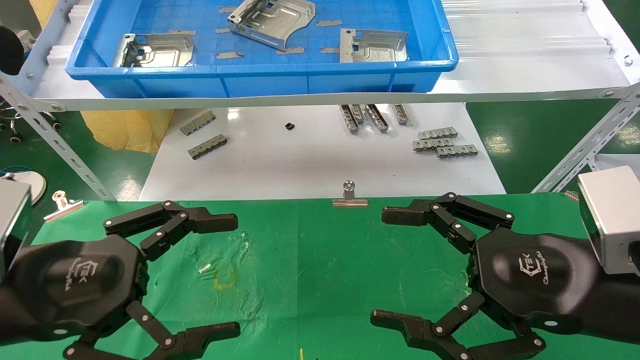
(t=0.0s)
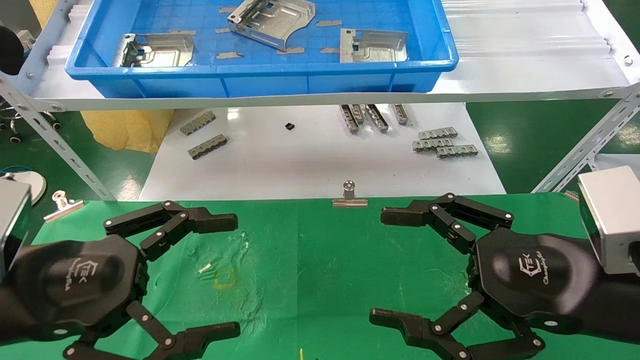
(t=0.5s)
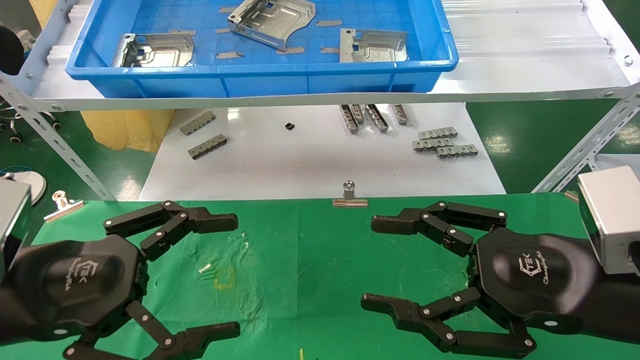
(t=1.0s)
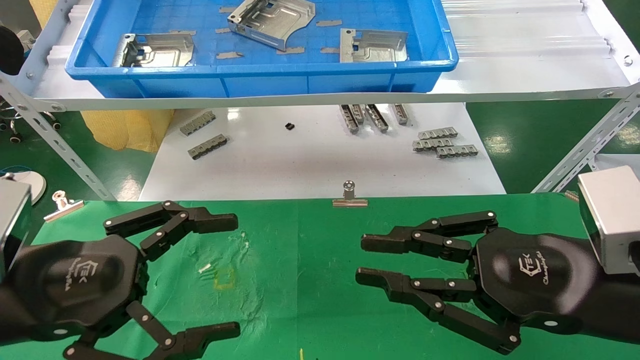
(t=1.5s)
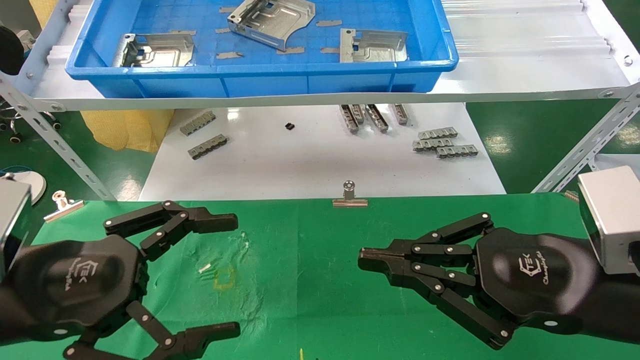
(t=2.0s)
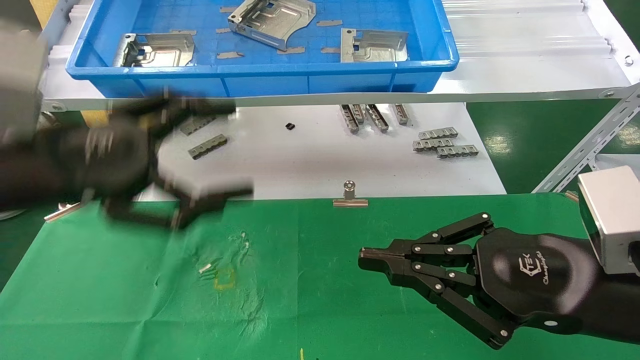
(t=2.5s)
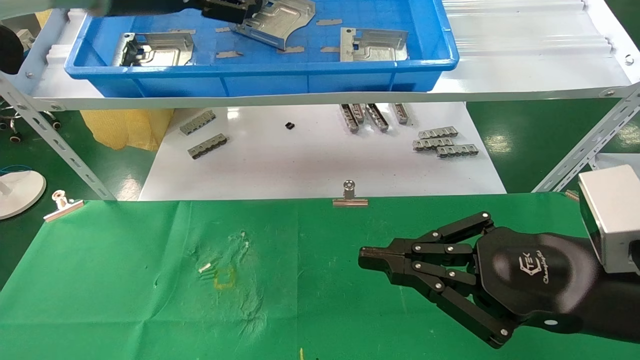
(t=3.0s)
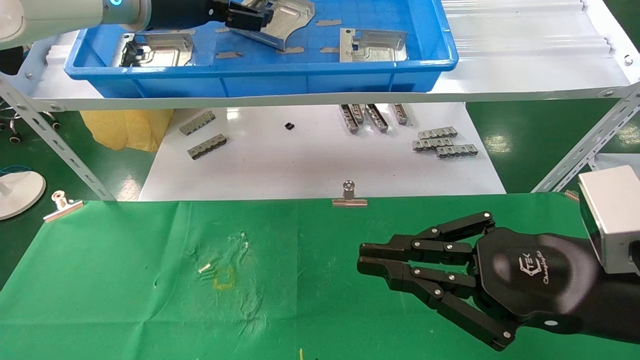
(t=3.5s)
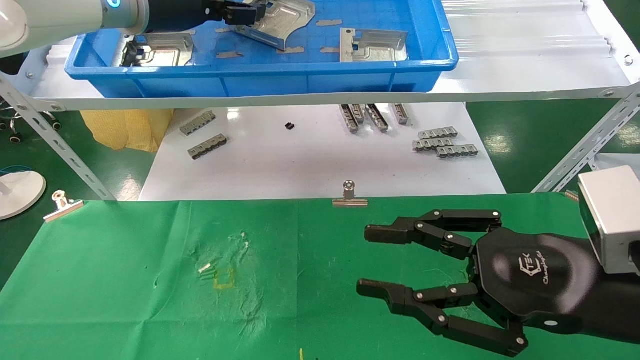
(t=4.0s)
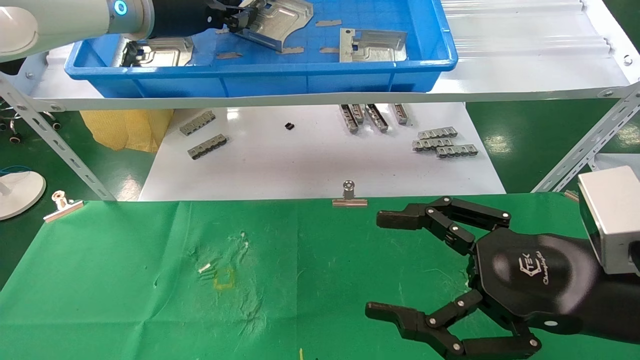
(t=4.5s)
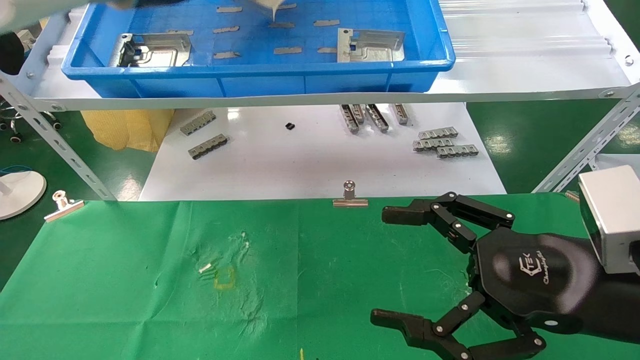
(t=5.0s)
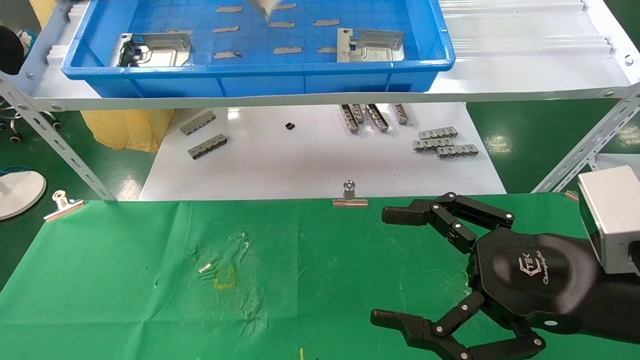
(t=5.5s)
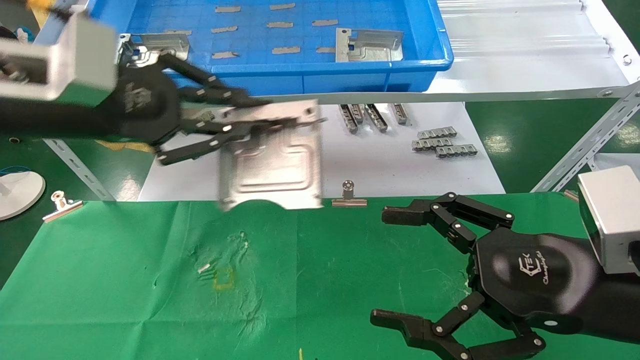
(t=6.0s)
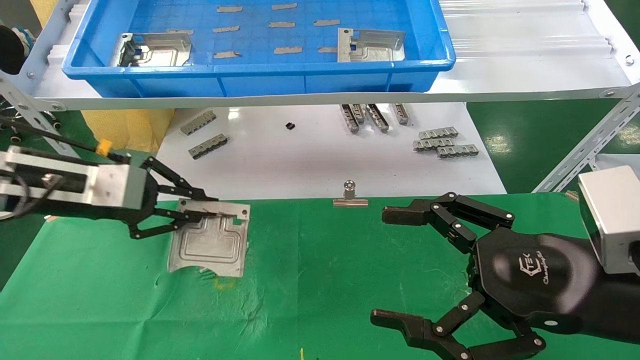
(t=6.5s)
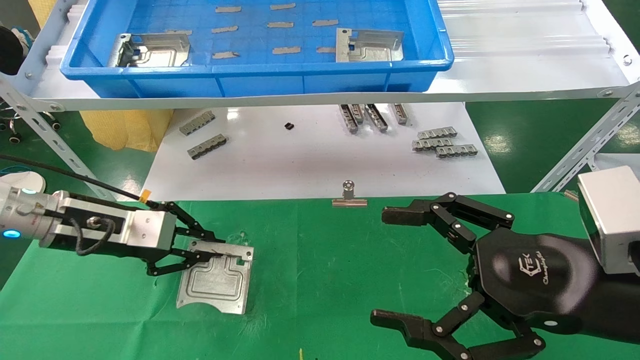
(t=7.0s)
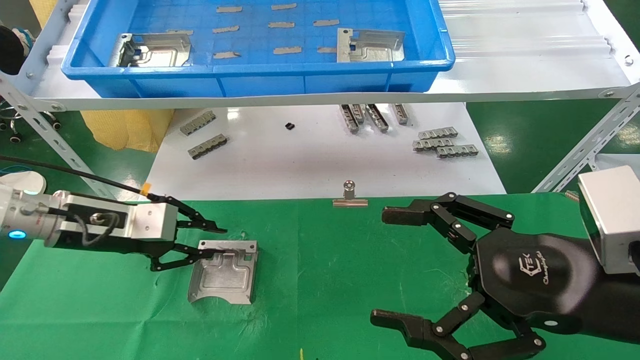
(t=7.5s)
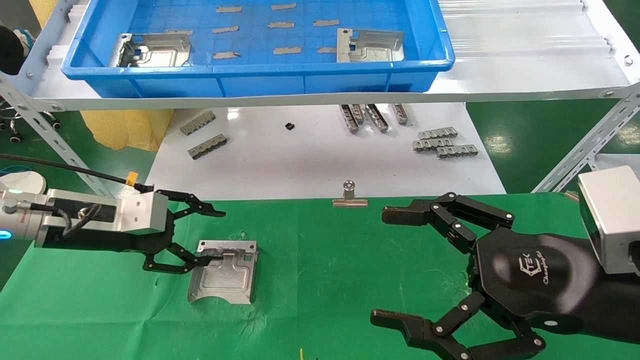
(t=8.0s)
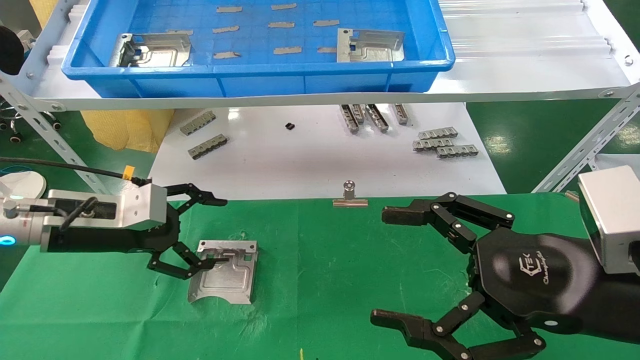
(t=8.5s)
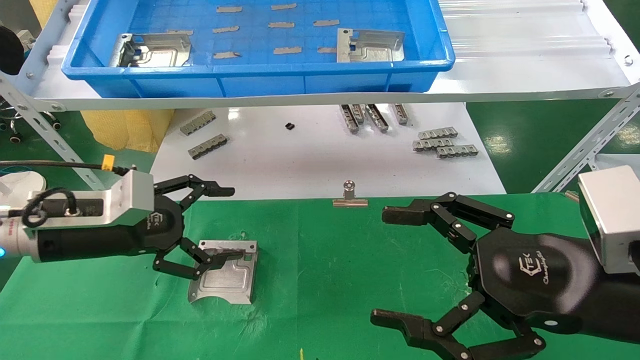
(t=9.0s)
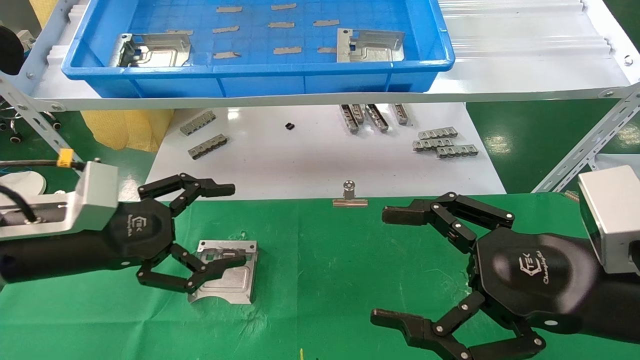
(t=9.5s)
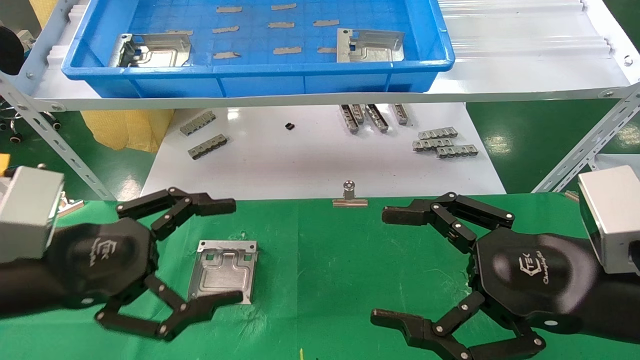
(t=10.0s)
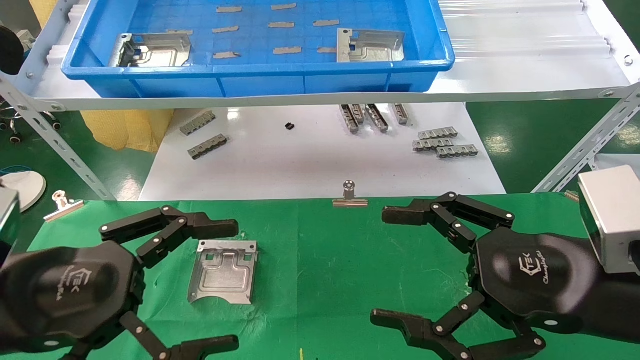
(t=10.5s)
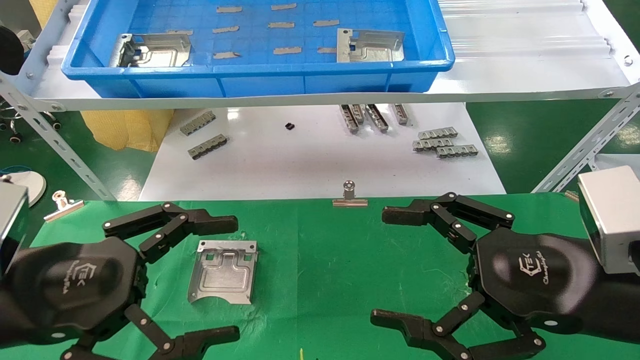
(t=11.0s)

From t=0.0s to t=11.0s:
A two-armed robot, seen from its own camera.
Task of the whole recording: use the mechanical arm to pick up the parts and place them on the table.
Step, from t=2.5s to t=4.5s: Pick up the hard drive bracket from the feeding area.
Step, from t=5.0s to t=7.5s: Place the hard drive bracket into the box.
From t=0.0s to t=2.0s: The right gripper closes up.
From t=2.0s to t=3.5s: The left gripper is displaced upward and forward by roughly 35 cm.
From t=3.5s to t=5.5s: The left gripper goes approximately 5 cm backward, and closes; the right gripper opens.
From t=5.5s to t=7.5s: The left gripper travels downward by approximately 25 cm.
From t=7.5s to t=9.0s: The left gripper opens its fingers.
From t=9.0s to t=11.0s: The left gripper shifts approximately 15 cm backward.

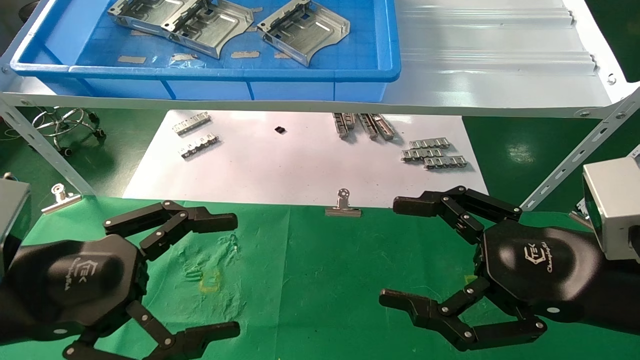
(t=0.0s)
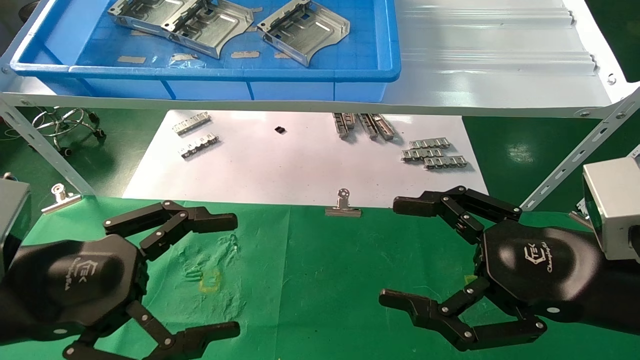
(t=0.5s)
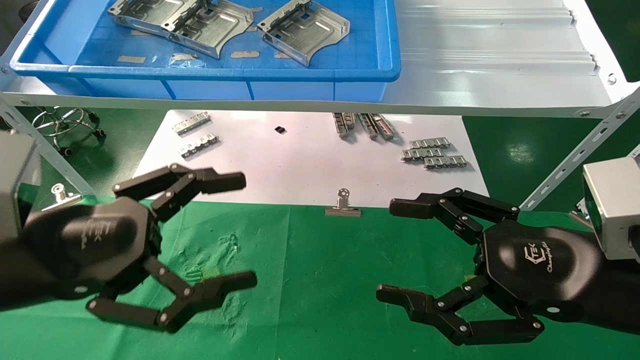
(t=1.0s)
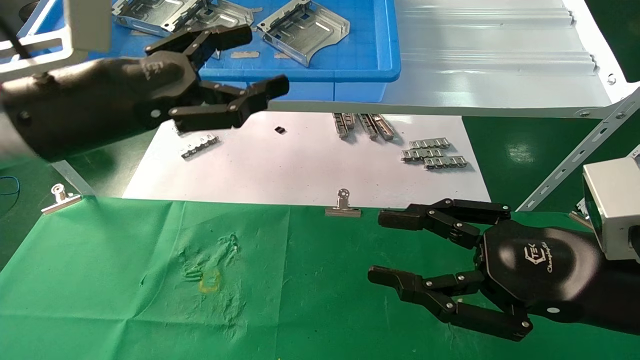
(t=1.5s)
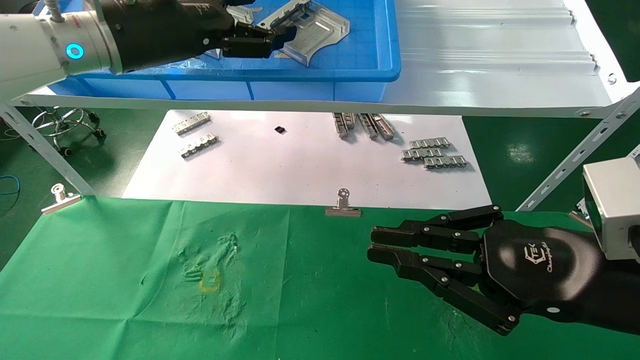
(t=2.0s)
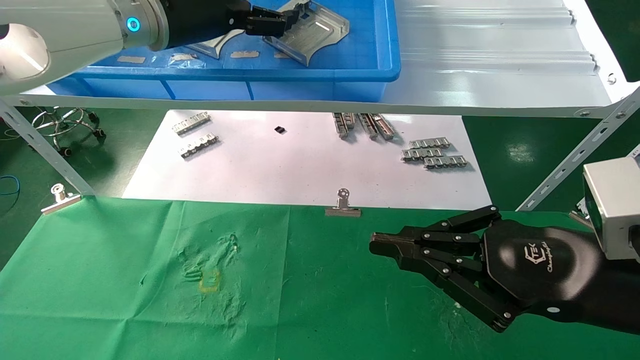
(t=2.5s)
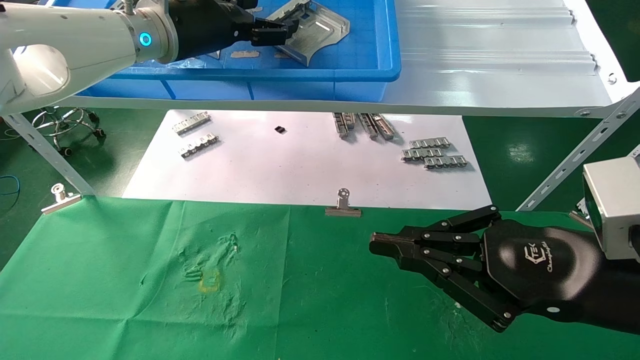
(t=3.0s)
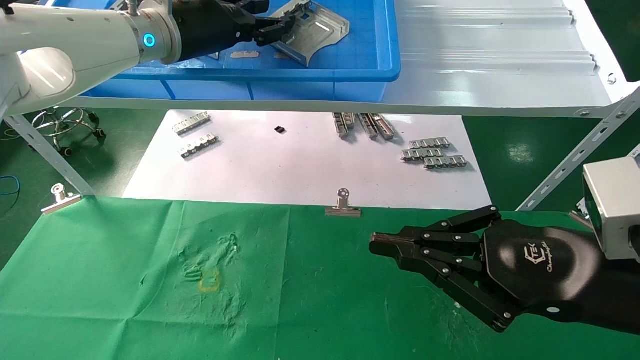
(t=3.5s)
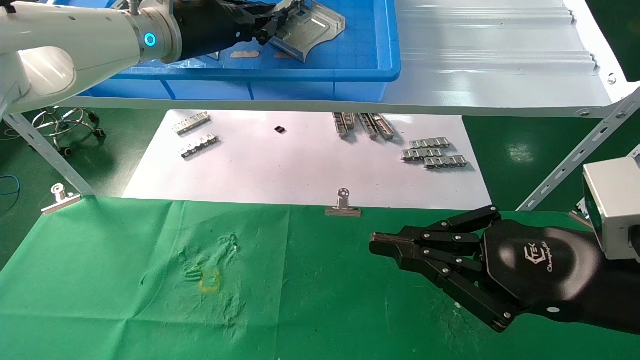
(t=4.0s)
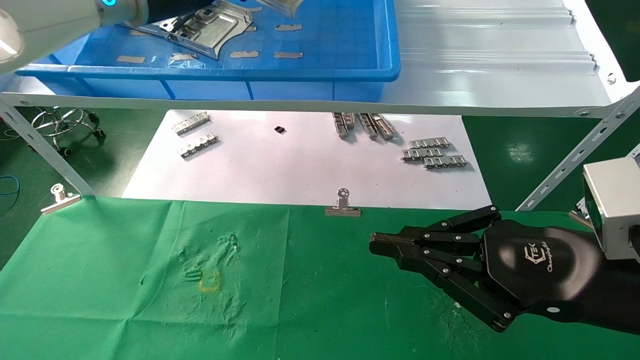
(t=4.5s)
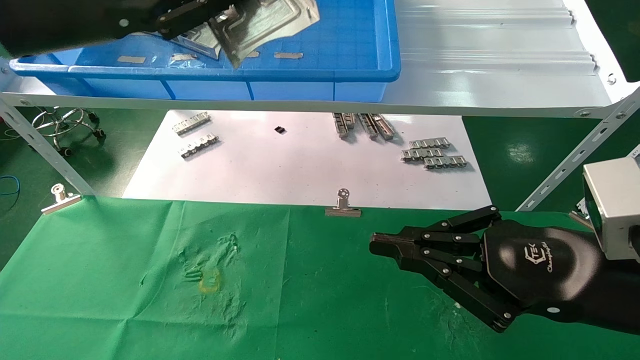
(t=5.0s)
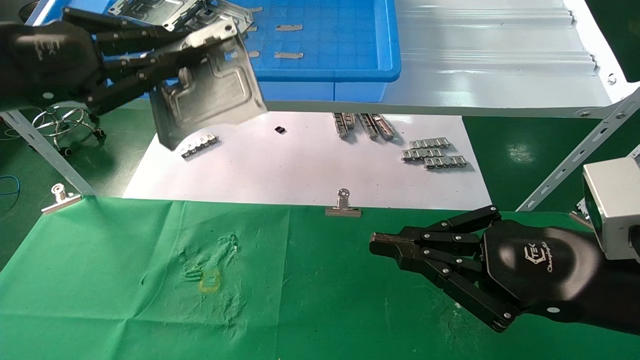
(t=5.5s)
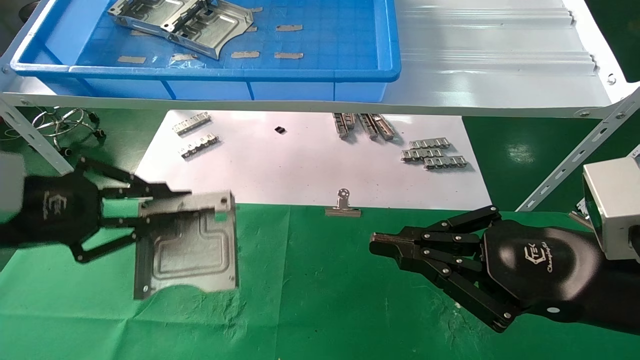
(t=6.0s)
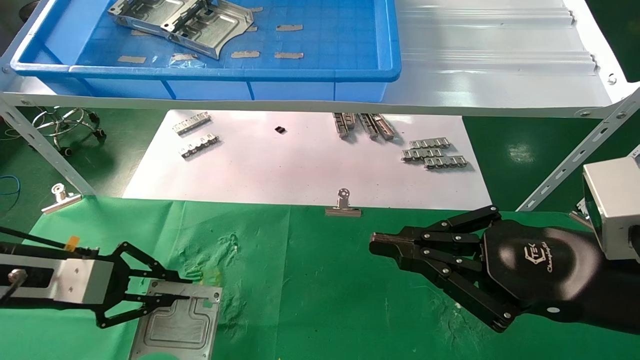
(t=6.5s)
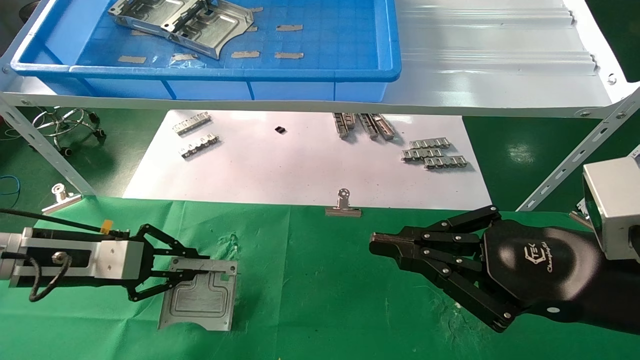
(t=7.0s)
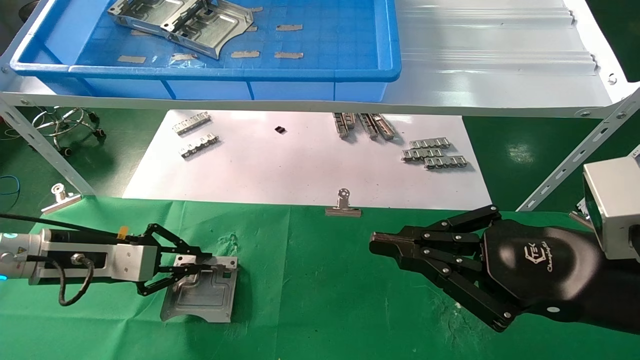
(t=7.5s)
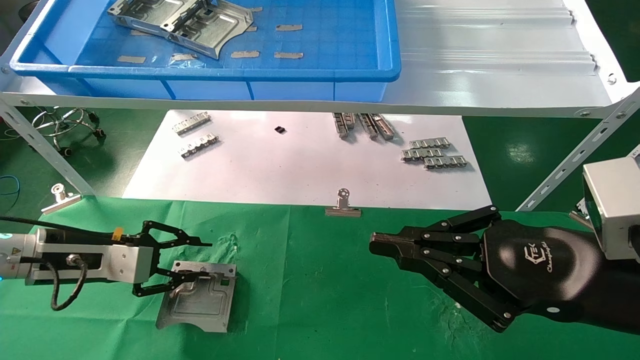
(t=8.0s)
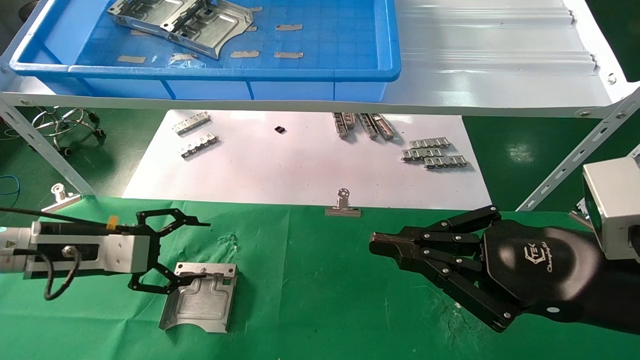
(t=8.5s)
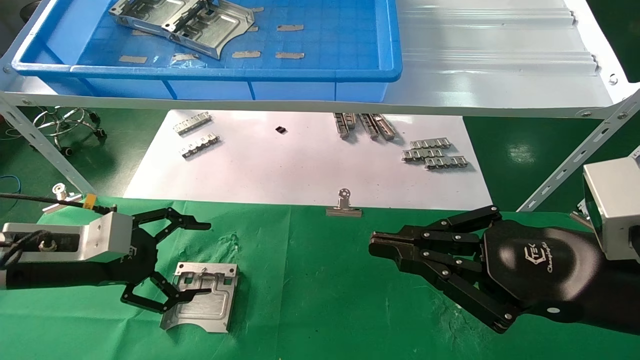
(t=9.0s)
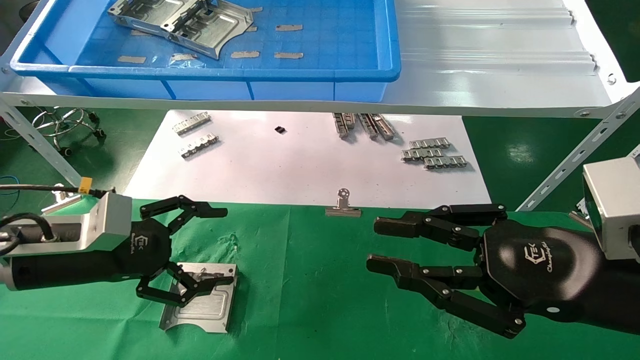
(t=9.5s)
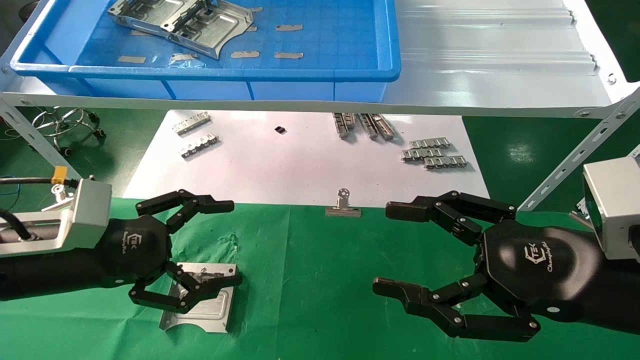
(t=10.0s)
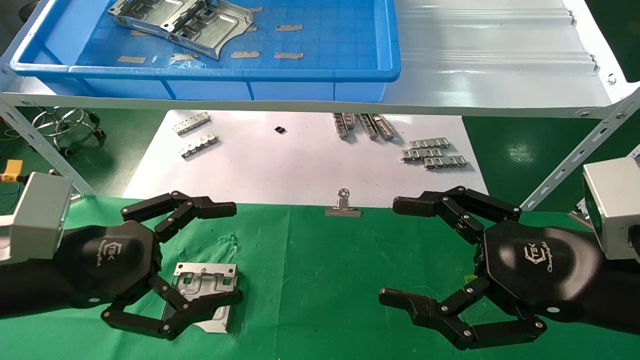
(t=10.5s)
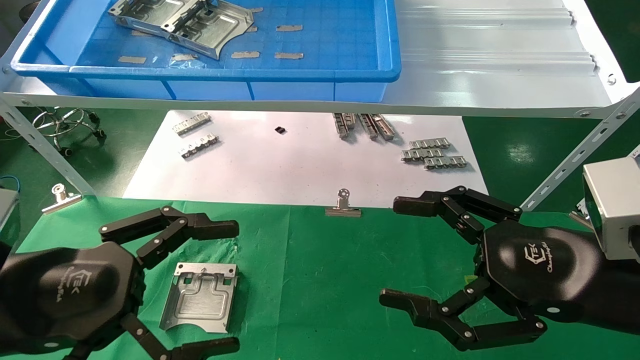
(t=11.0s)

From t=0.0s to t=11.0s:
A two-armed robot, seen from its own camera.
Task of the whole recording: use the mechanical arm to pick up the parts and place them on the table.
Step, from t=1.5s to t=3.5s: Pick up the hard drive bracket from the feeding area.
Step, from t=4.0s to t=7.5s: Place the hard drive bracket into the box.
From t=0.0s to t=2.0s: The right gripper closes; the left gripper is displaced forward and upward by roughly 30 cm.
From t=2.0s to t=3.5s: The left gripper is displaced forward by some 5 cm, and closes.
From t=3.5s to t=5.5s: The left gripper shifts about 25 cm backward and to the left, and closes its fingers.
From t=5.5s to t=7.5s: The left gripper is displaced downward by some 20 cm.
From t=7.5s to t=9.0s: The left gripper opens up.
From t=9.0s to t=11.0s: The left gripper shifts about 15 cm backward and to the right. Meanwhile the right gripper opens its fingers.
